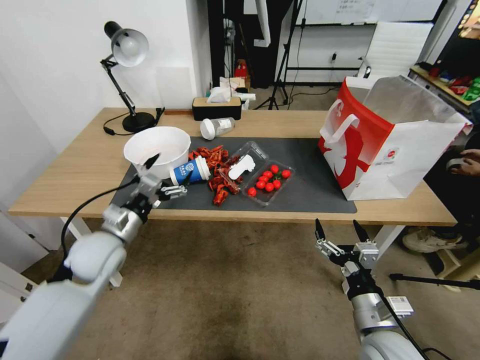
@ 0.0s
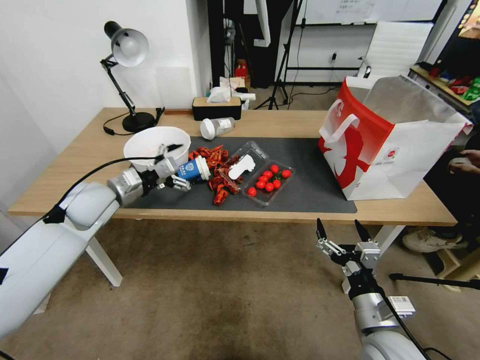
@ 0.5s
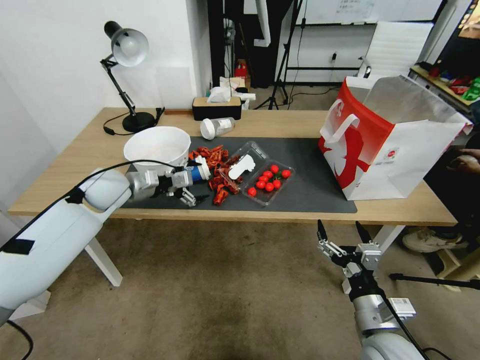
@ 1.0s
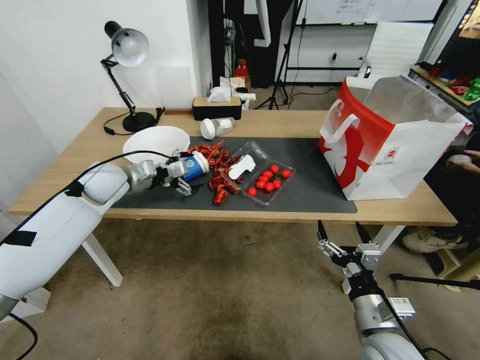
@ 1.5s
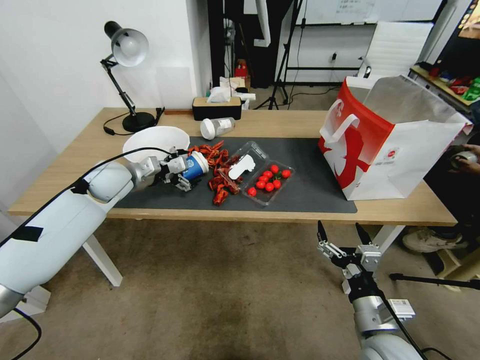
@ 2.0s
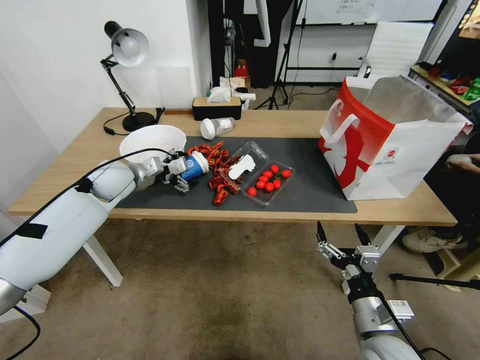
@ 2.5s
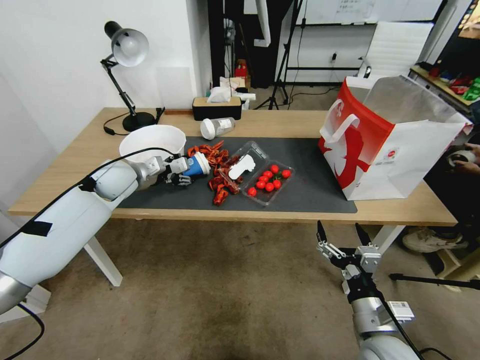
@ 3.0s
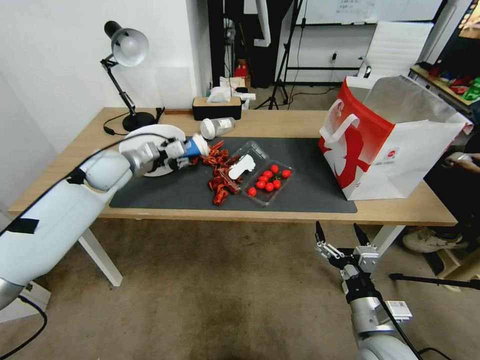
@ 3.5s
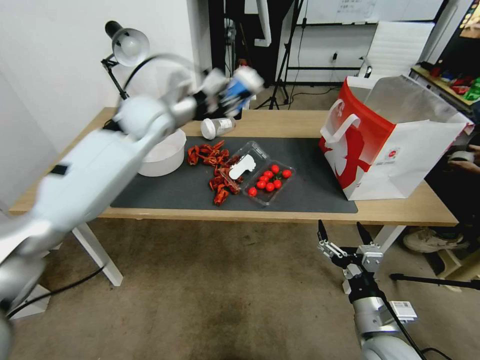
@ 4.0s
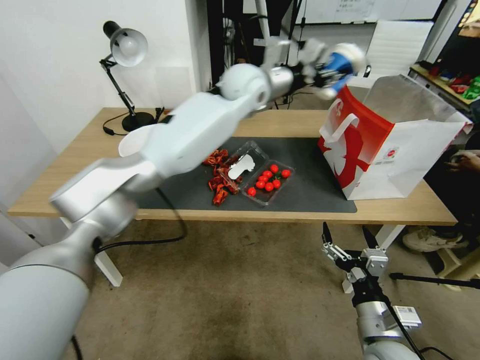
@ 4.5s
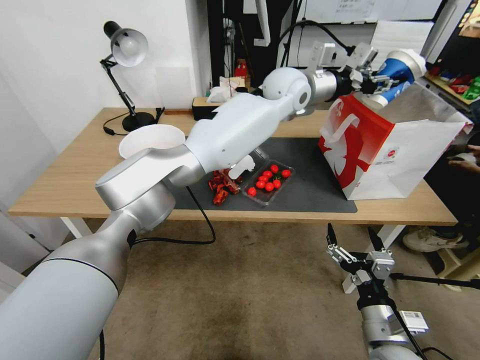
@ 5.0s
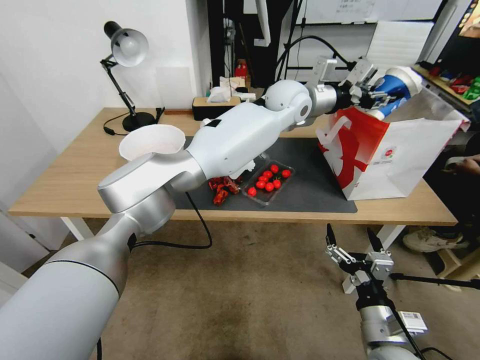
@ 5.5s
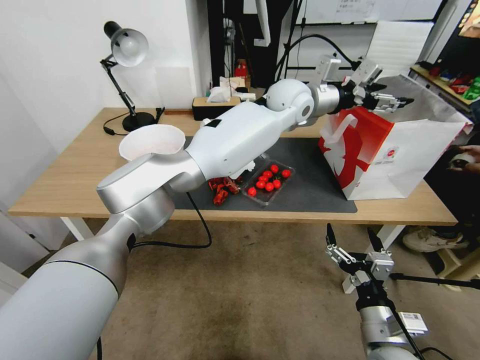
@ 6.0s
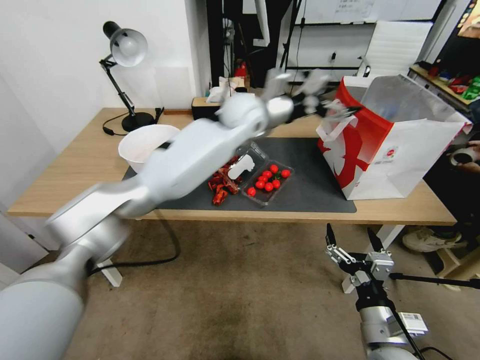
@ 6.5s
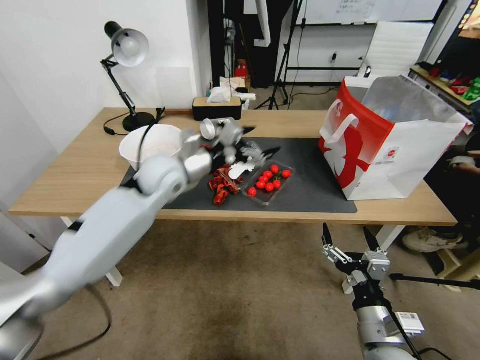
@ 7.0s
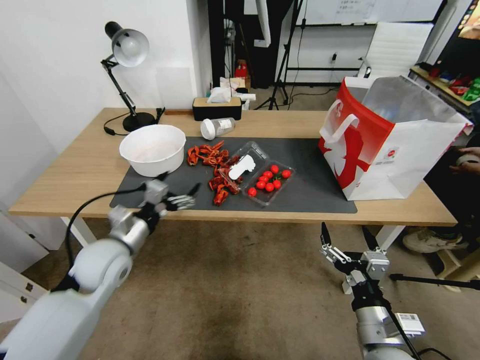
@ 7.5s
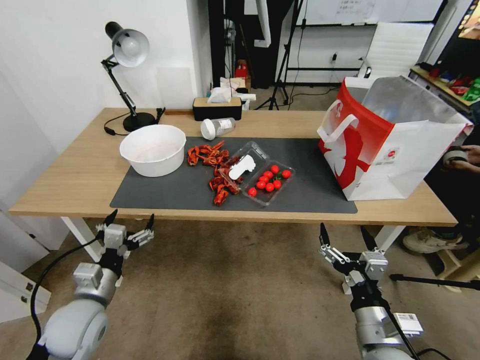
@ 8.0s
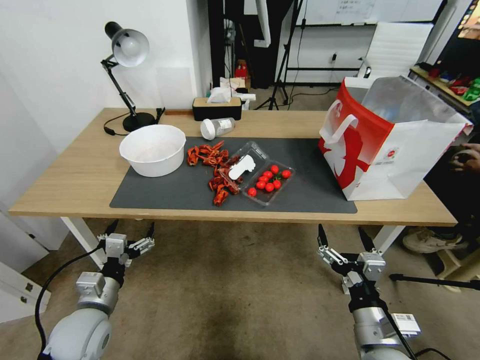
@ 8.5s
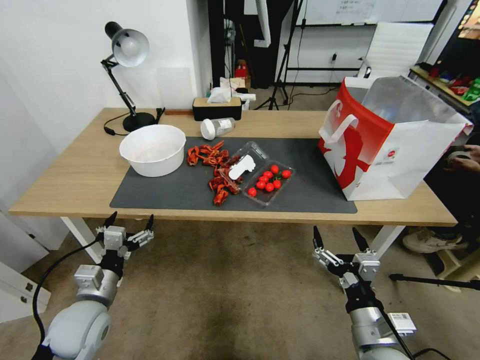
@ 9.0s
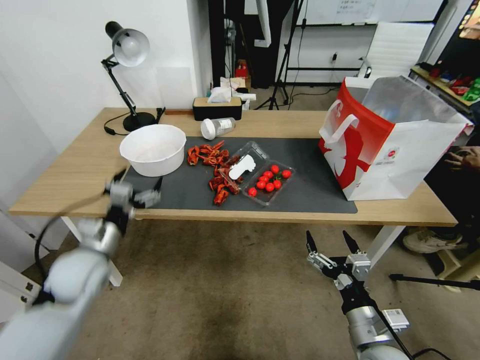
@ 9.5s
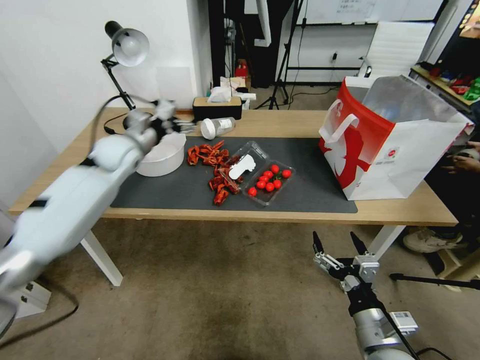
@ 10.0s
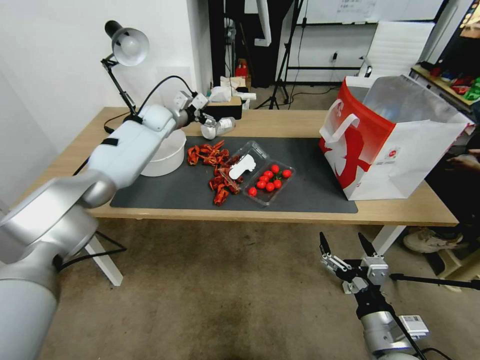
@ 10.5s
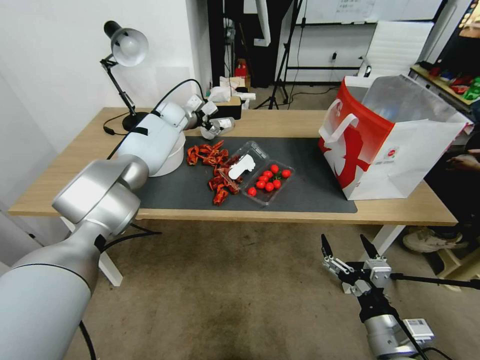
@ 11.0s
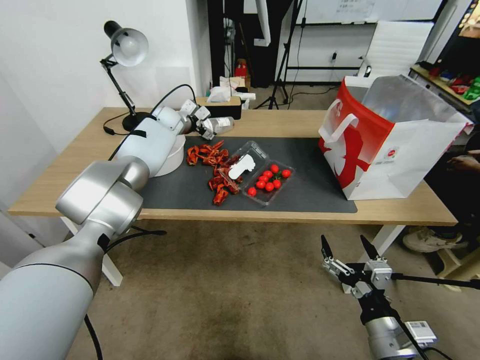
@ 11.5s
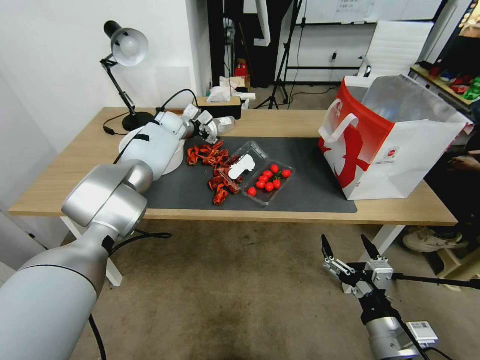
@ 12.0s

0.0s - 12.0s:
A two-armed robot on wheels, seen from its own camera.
0.0s - 2.0s: The left gripper moves forward and upward, roughly 15 cm.
2.0s - 4.0s: The left gripper goes roughly 15 cm upward and to the right, and closes its fingers.
4.0s - 6.0s: The left gripper travels to the right by roughly 35 cm, and opens up.
6.0s - 8.0s: The left gripper moves to the left, backward and downward, approximately 60 cm.
8.0s - 10.0s: The left gripper moves forward and upward, roughly 35 cm.
10.0s - 12.0s: The left gripper heads forward, covering approximately 20 cm.

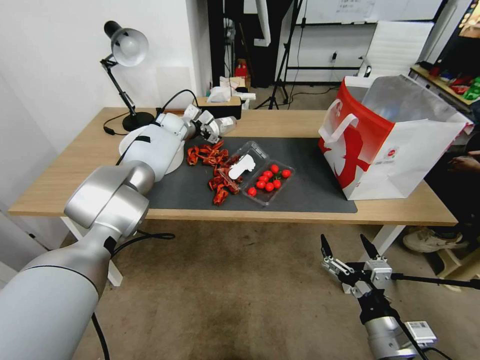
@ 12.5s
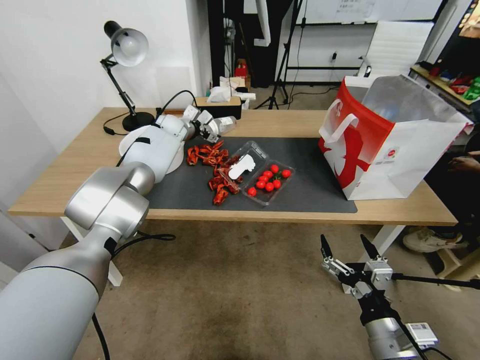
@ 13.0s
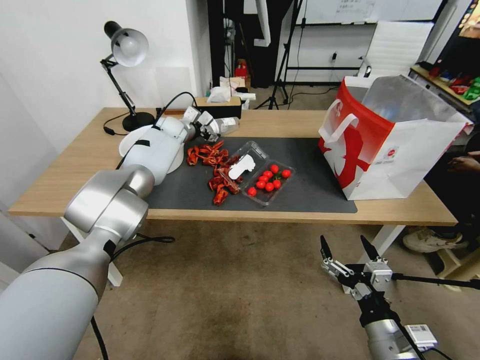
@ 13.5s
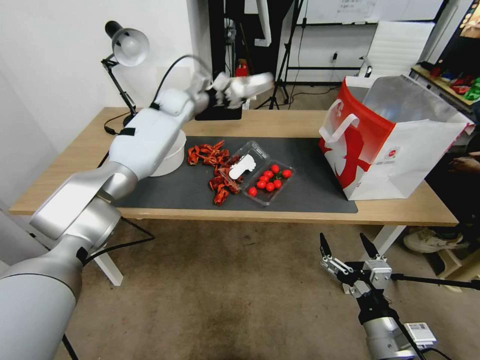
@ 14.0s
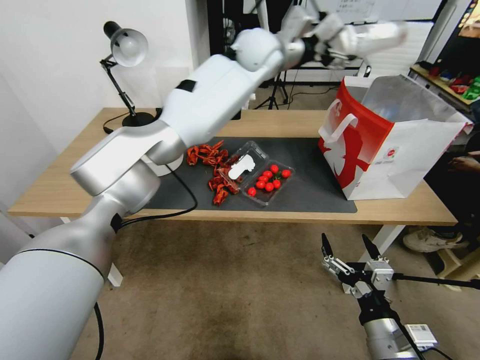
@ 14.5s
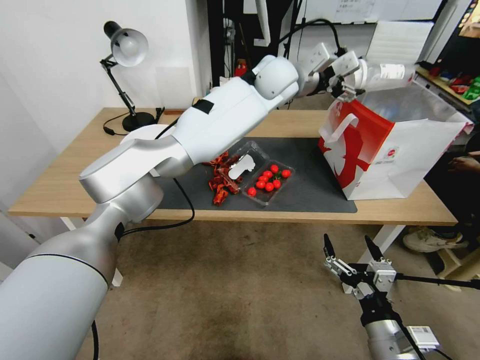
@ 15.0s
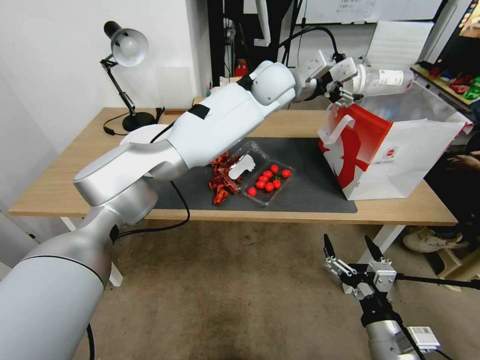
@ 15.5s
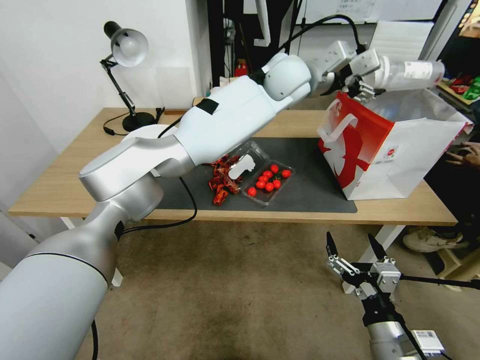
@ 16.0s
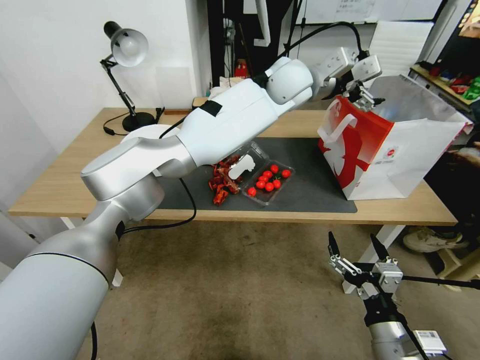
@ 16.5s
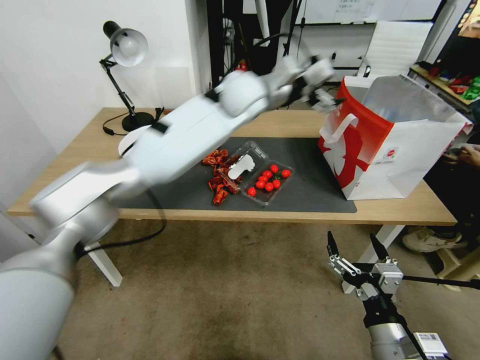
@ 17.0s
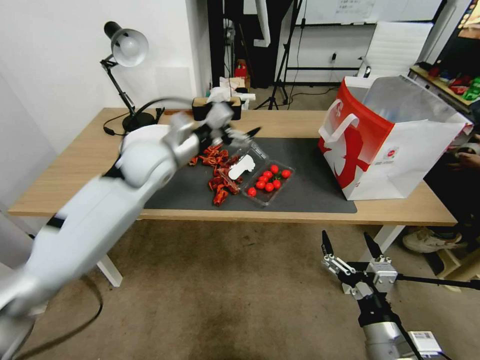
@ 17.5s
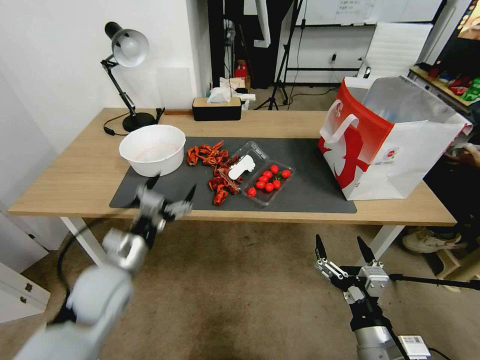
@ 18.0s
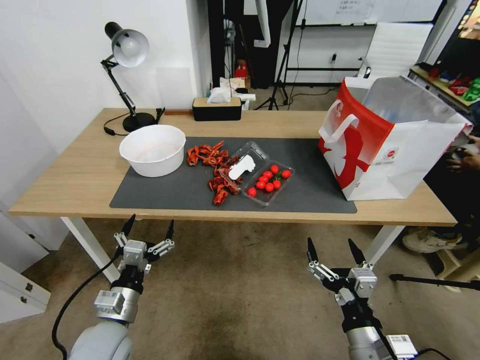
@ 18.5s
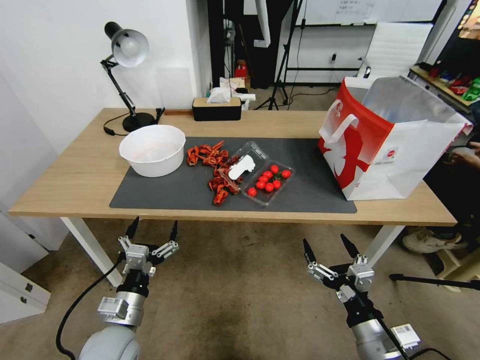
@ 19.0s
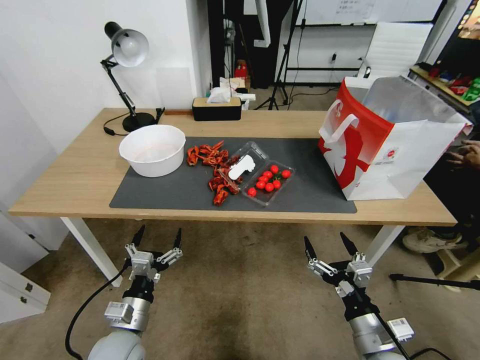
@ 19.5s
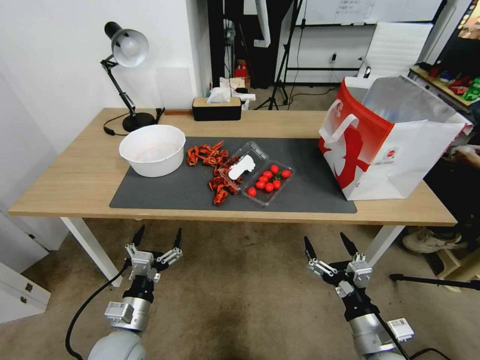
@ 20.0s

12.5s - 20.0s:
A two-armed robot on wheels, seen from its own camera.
12.5s - 14.5s: The left gripper travels to the right and upward by roughly 35 cm.
14.5s - 16.5s: The left gripper heads to the right and backward, covering about 10 cm.
16.5s - 18.0s: The left gripper moves to the left, backward and downward, approximately 50 cm.
18.0s - 20.0s: The right gripper moves about 5 cm; the left gripper heads downward and backward, covering about 15 cm.

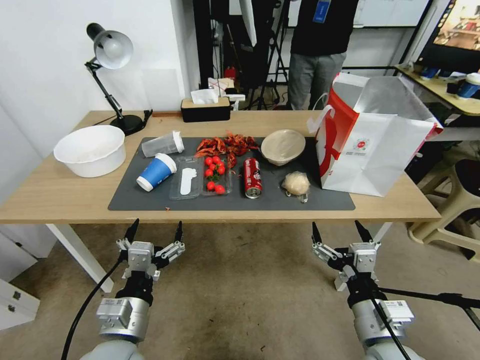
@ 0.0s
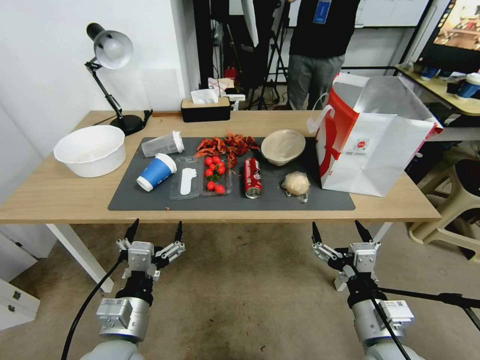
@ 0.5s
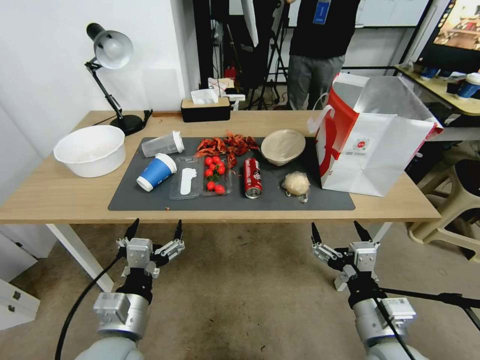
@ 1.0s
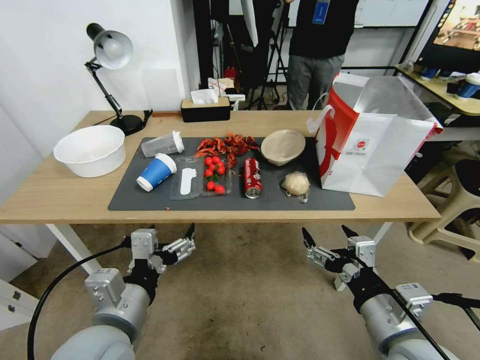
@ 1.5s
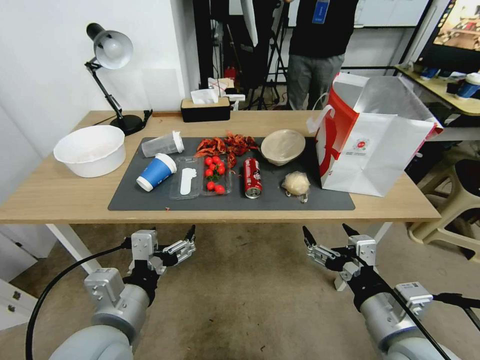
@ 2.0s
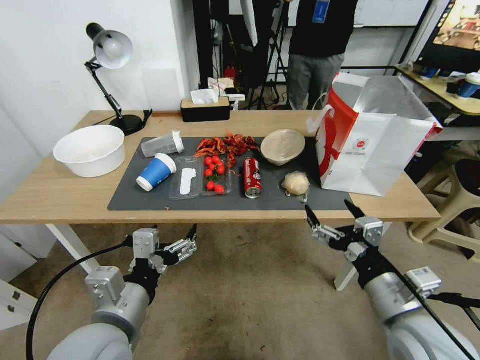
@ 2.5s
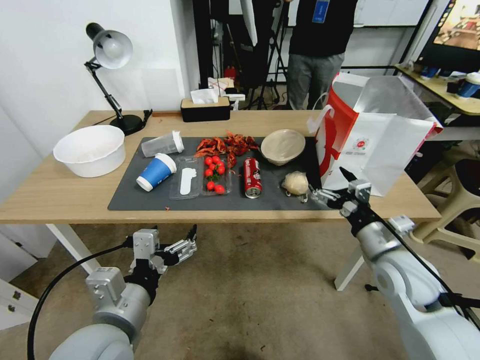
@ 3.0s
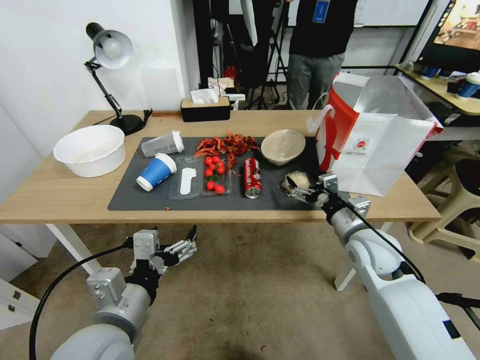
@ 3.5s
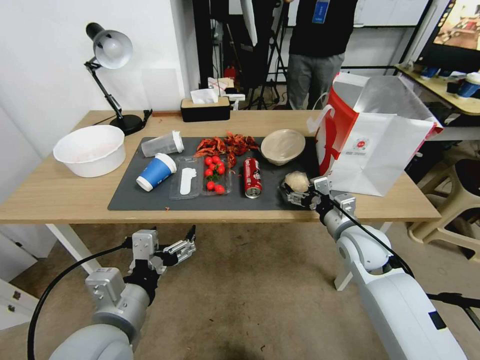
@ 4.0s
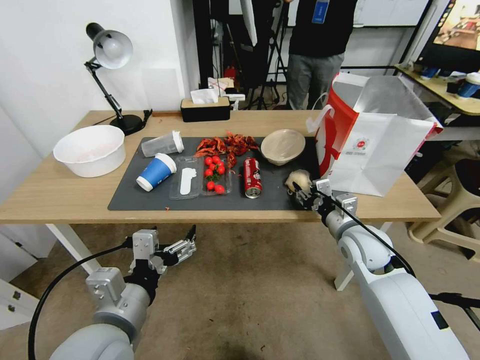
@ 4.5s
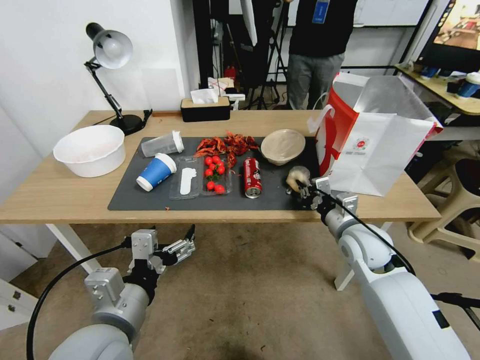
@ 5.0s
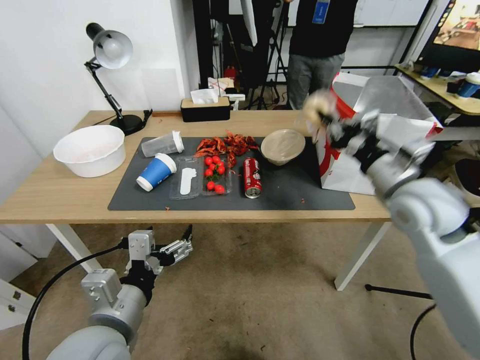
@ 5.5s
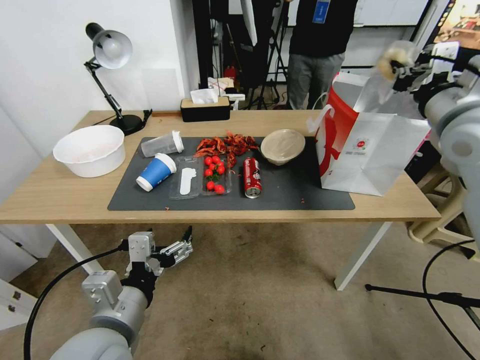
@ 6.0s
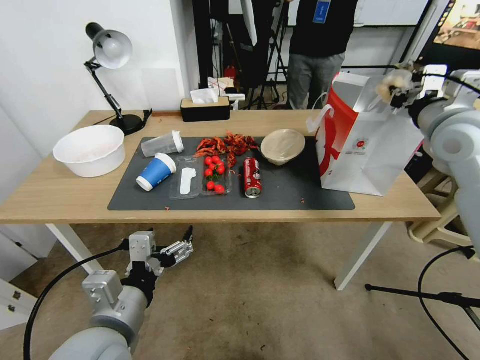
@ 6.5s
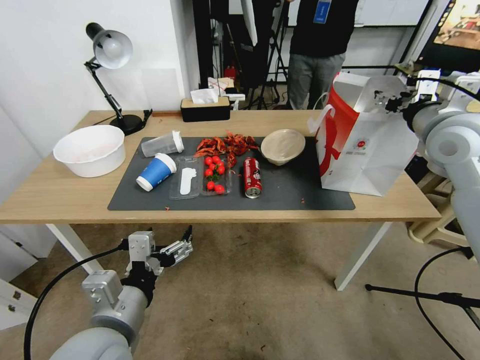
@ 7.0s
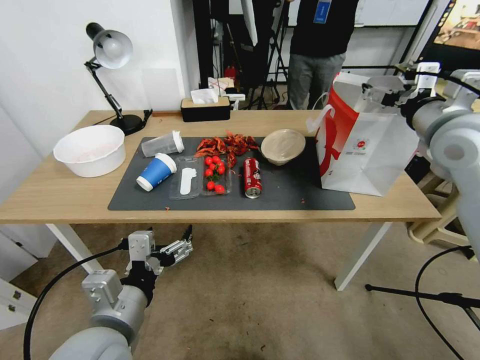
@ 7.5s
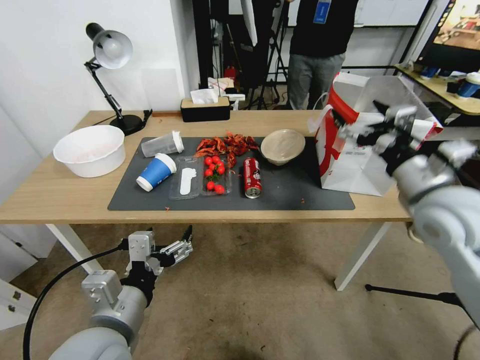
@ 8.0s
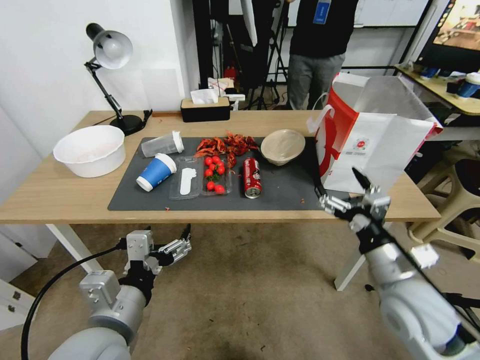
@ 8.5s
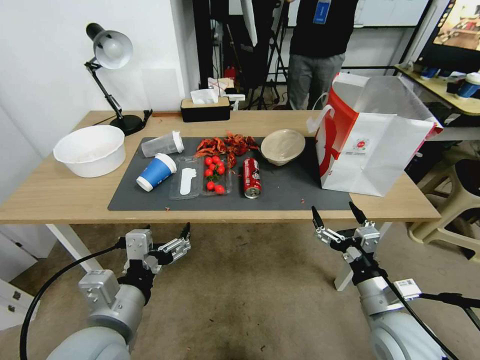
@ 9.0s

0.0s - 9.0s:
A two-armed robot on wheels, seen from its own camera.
2.0s - 4.5s: The right gripper travels forward by roughly 20 cm, and closes.
4.5s - 7.0s: The right gripper goes roughly 25 cm upward, and closes, then opens again.
7.0s - 9.0s: The right gripper goes roughly 35 cm downward and backward, and opens its fingers.
